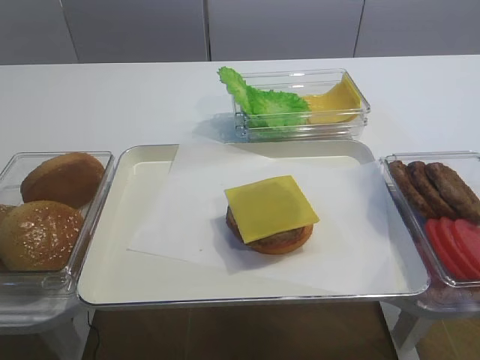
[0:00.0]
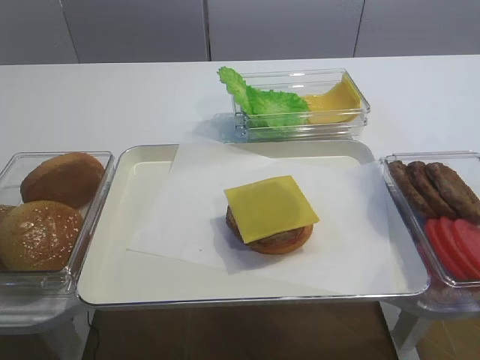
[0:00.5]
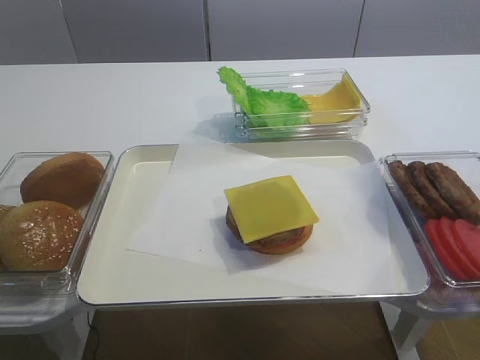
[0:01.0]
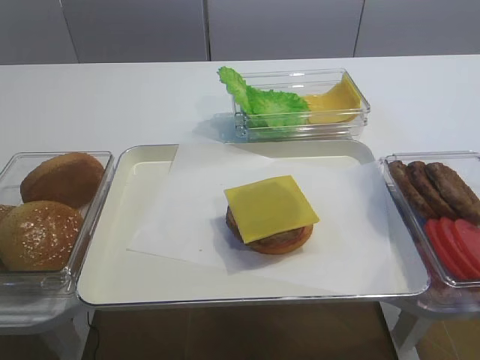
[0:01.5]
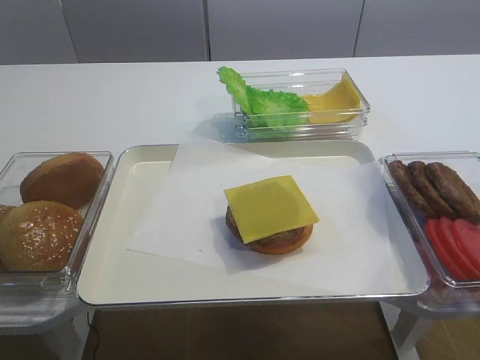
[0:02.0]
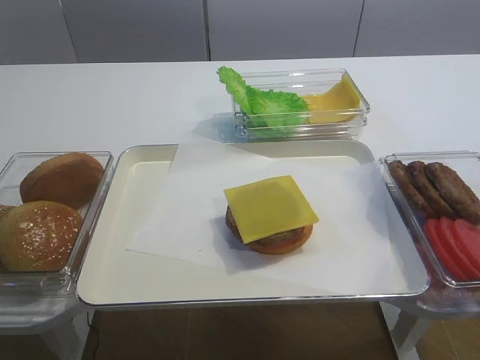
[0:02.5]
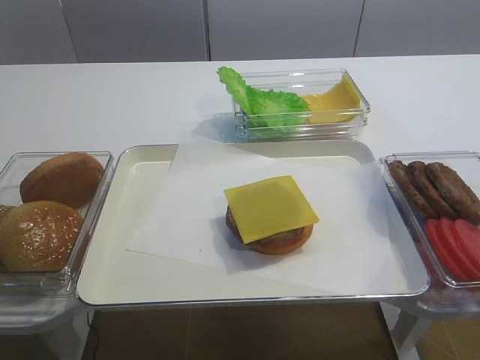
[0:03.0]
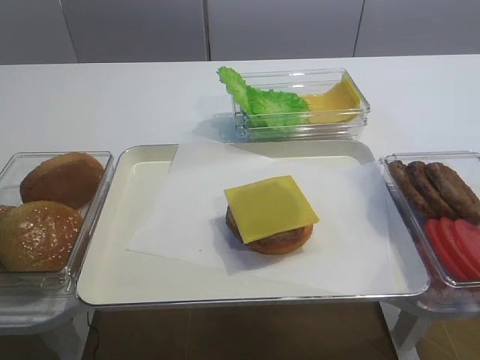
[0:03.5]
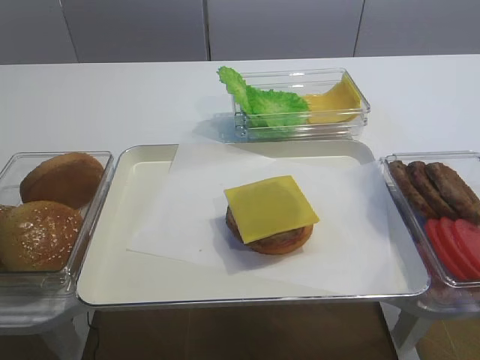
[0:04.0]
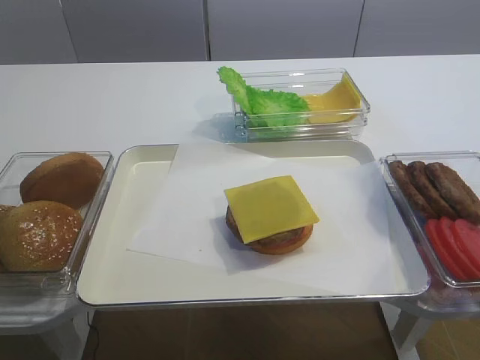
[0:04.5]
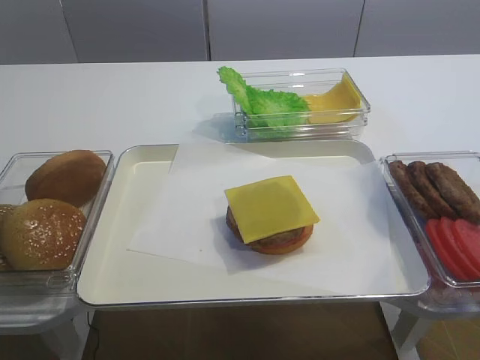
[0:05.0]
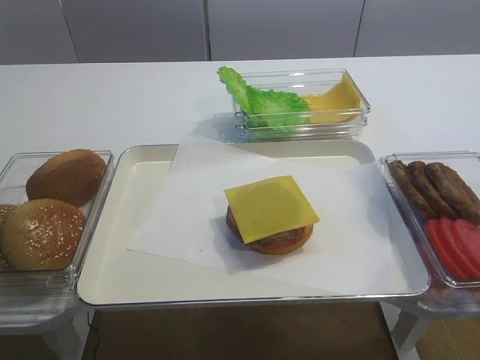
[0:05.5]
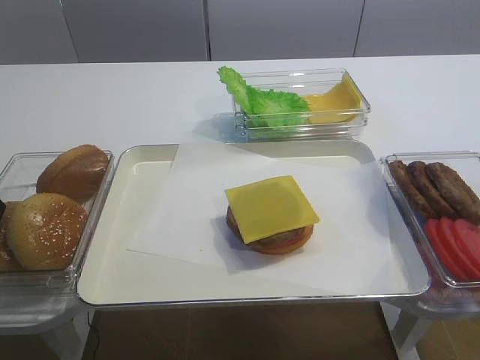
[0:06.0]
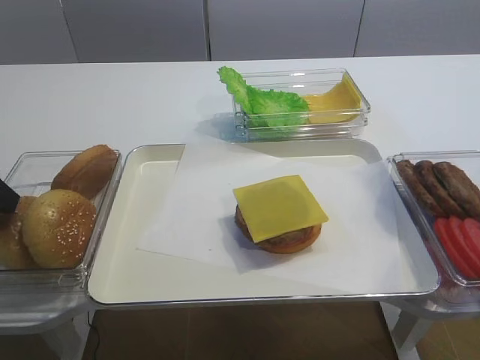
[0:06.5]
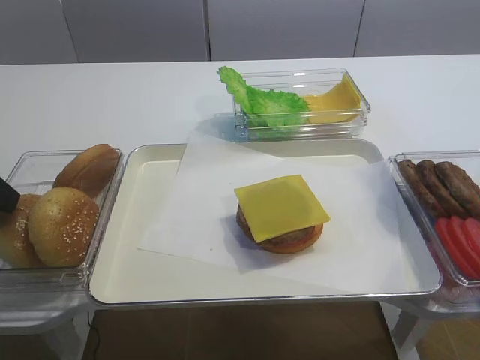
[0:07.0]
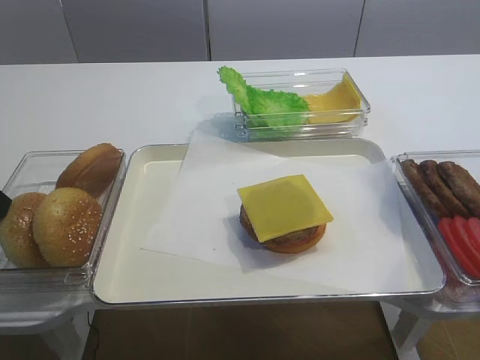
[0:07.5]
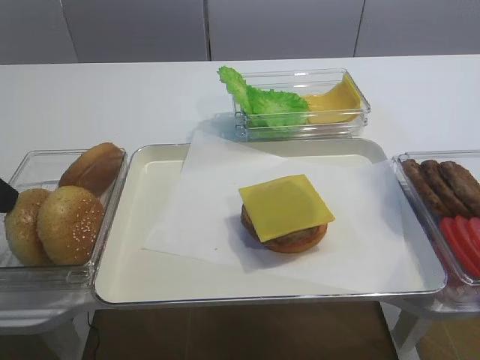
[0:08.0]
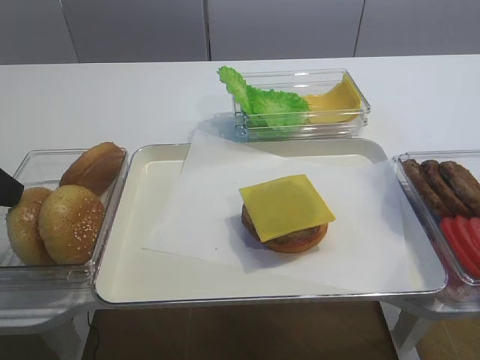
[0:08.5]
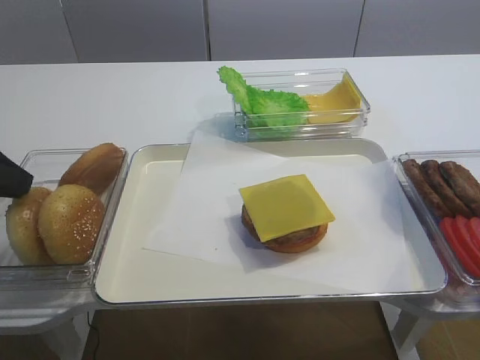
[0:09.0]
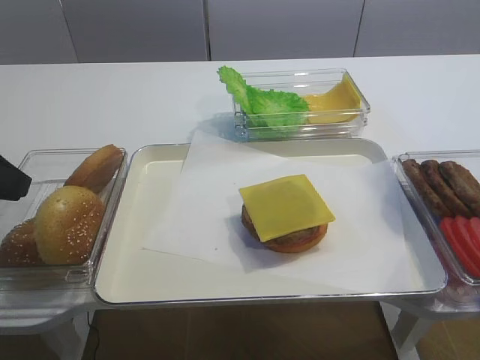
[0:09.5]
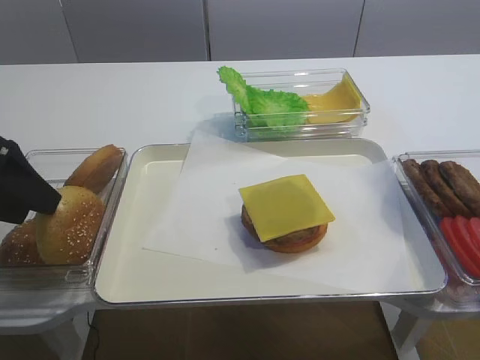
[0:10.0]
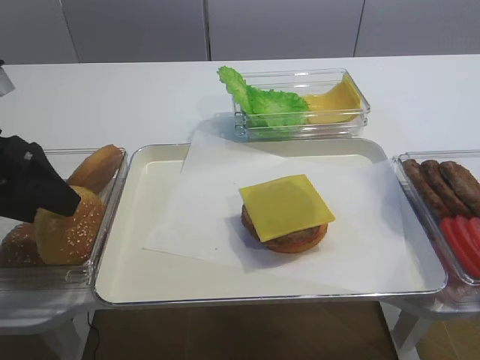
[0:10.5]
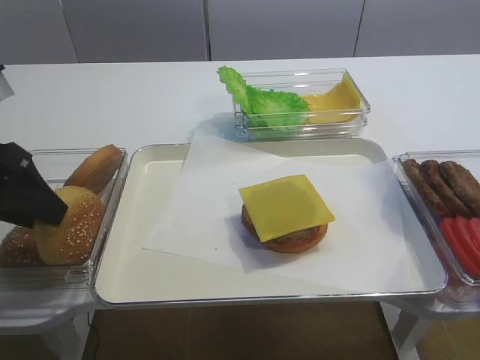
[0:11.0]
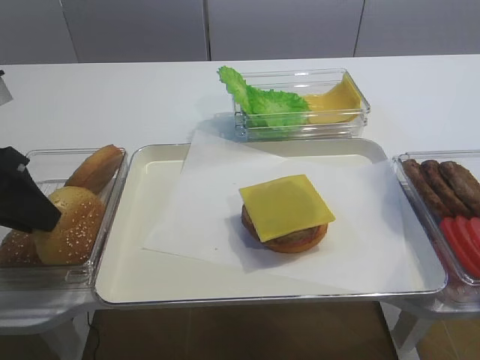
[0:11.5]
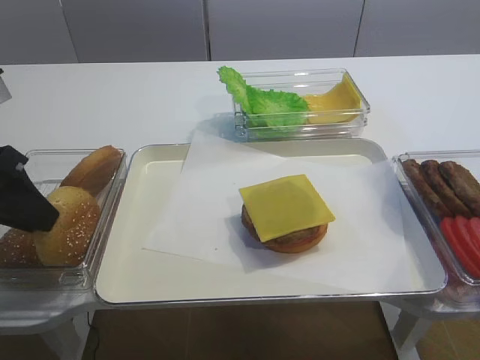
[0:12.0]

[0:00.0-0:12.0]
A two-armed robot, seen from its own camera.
0:04.0 to 0:06.0: There are only small adjustments of the grippers.
0:06.0 to 0:08.0: The left gripper closes.
0:08.0 to 0:10.0: The left gripper opens.
0:10.0 to 0:12.0: The left gripper closes.

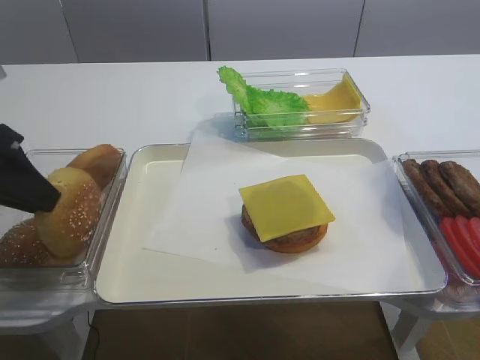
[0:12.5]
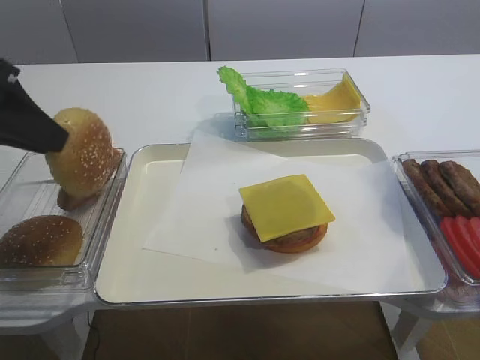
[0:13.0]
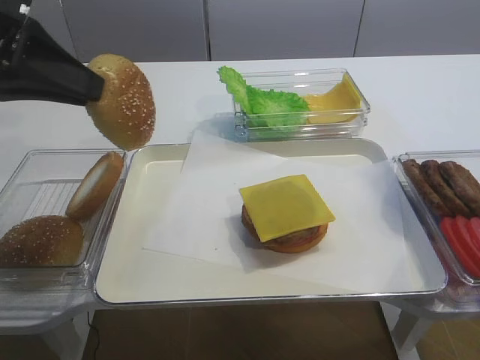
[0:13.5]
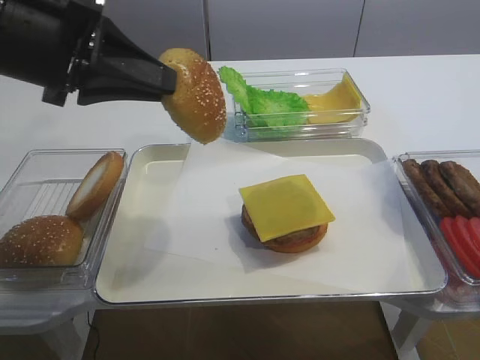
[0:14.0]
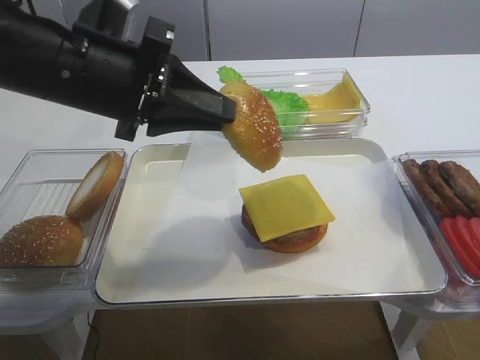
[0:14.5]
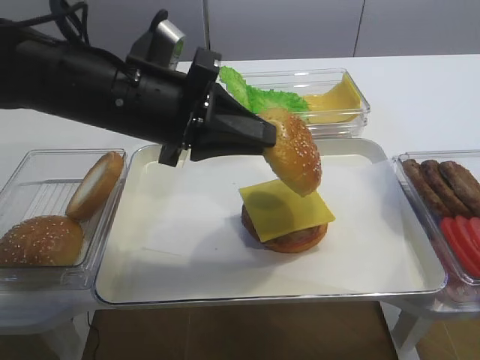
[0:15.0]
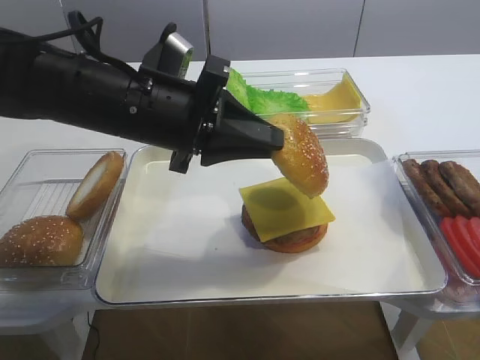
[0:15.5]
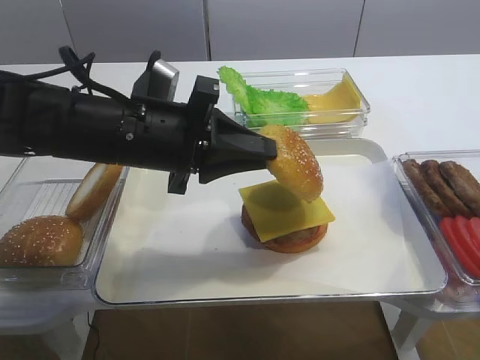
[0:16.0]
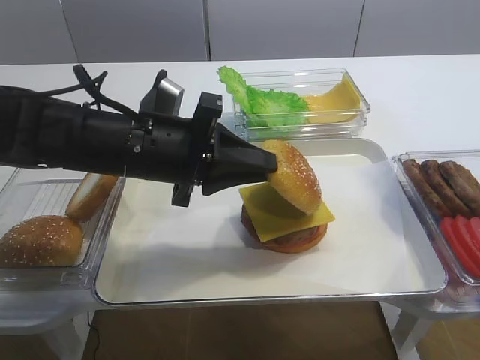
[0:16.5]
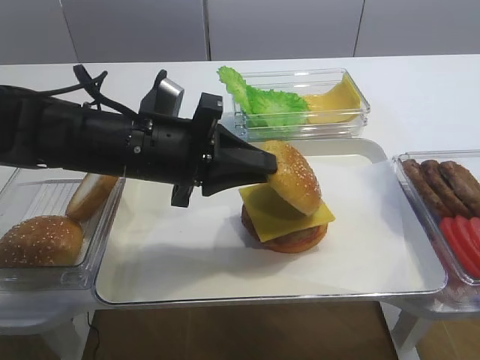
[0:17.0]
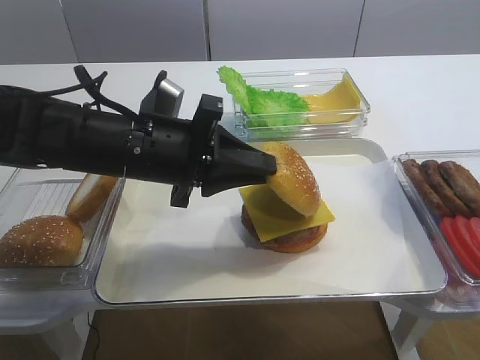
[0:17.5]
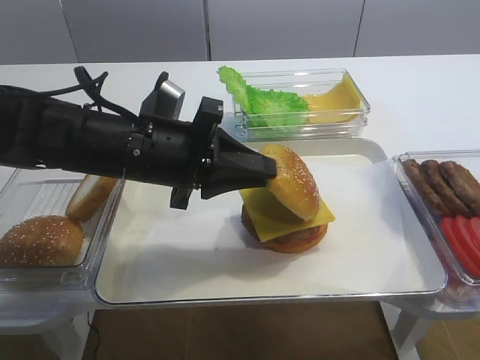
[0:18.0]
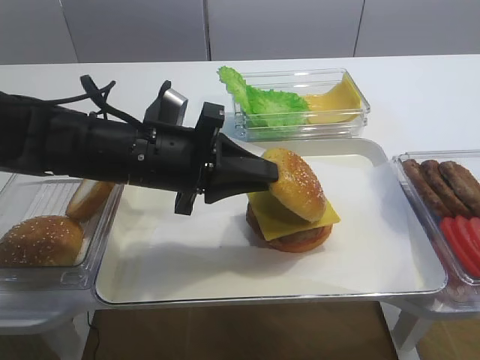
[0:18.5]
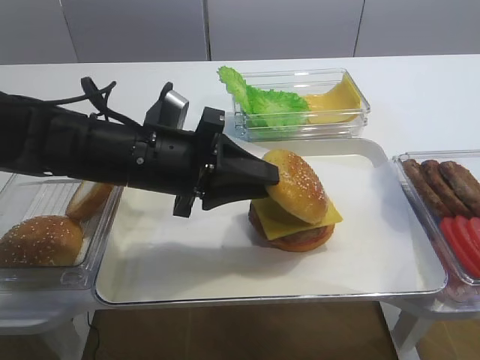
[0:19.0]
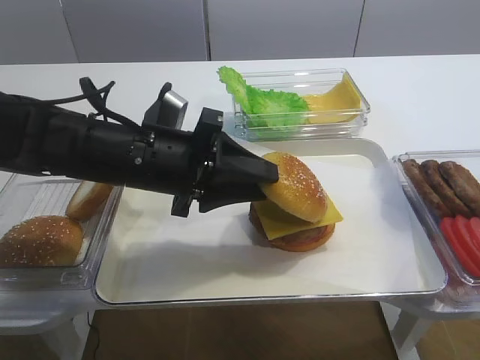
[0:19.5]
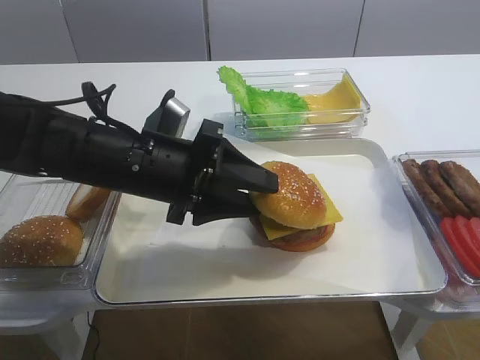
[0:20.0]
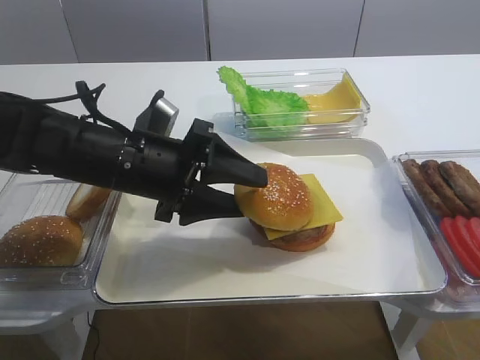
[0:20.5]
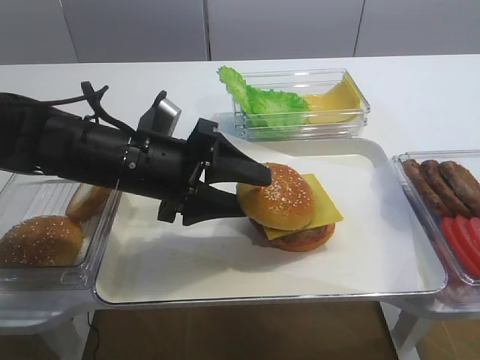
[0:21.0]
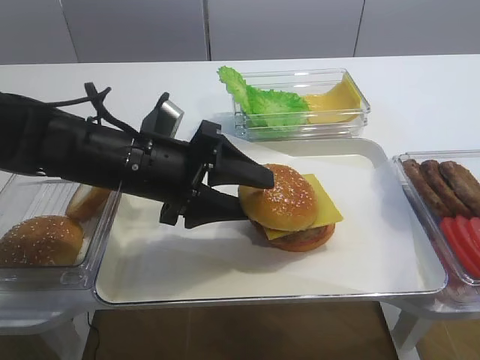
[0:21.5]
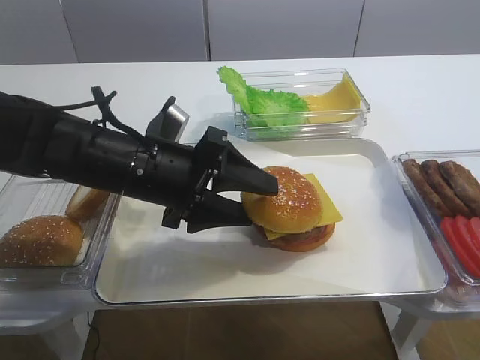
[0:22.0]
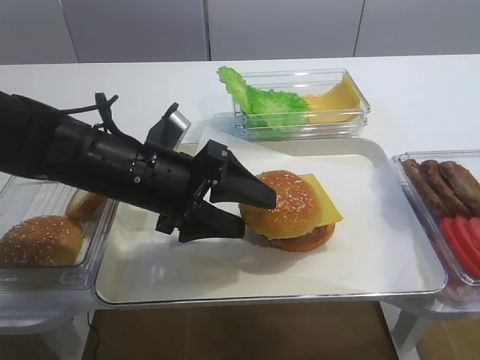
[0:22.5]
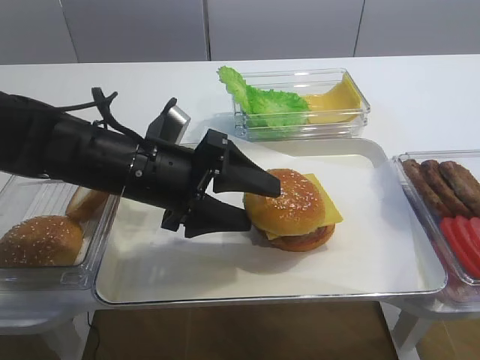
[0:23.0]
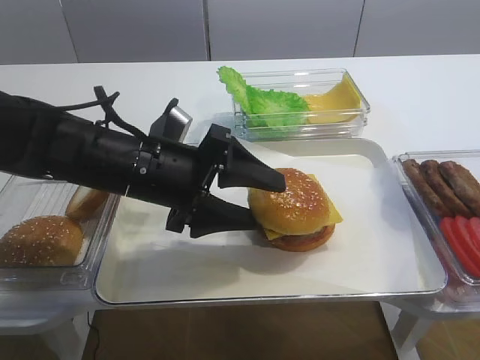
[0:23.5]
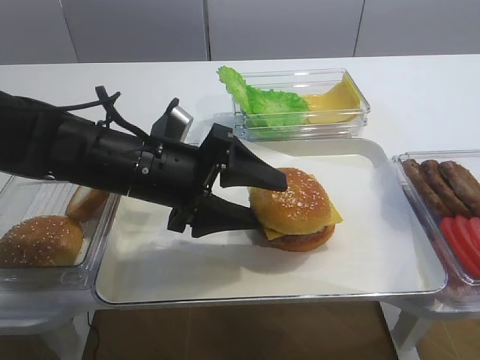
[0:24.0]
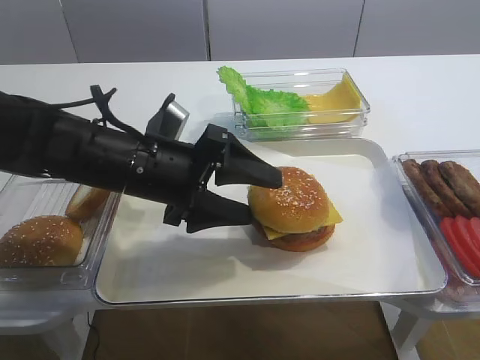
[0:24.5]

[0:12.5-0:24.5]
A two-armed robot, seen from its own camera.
0:12.5 to 0:14.5: The left gripper goes roughly 15 cm to the right.
0:14.5 to 0:16.5: The left gripper shifts approximately 5 cm downward.
0:16.5 to 0:18.5: The right gripper closes its fingers.
0:18.5 to 0:20.5: The right gripper closes up. Meanwhile the left gripper opens up.
0:20.5 to 0:24.5: The grippers stay close to where they were, moving slightly.

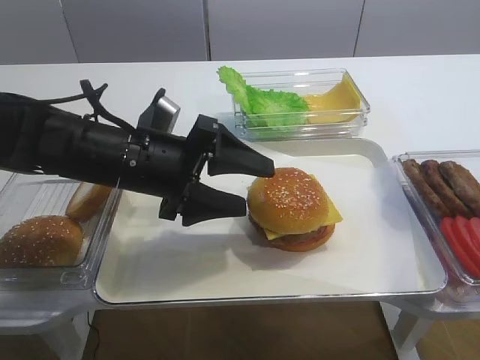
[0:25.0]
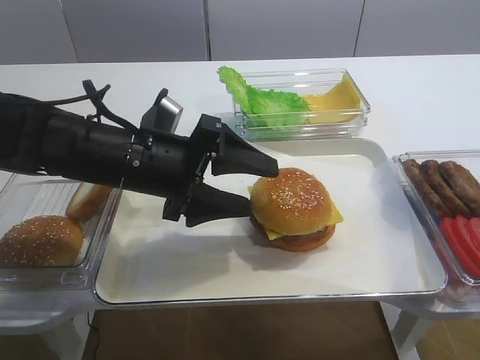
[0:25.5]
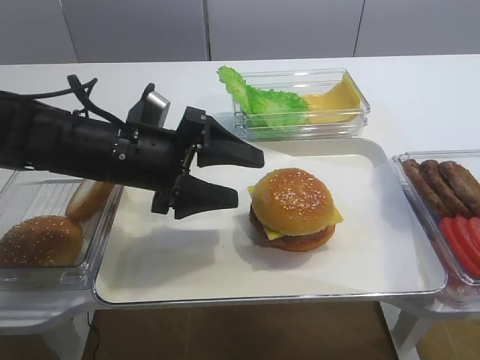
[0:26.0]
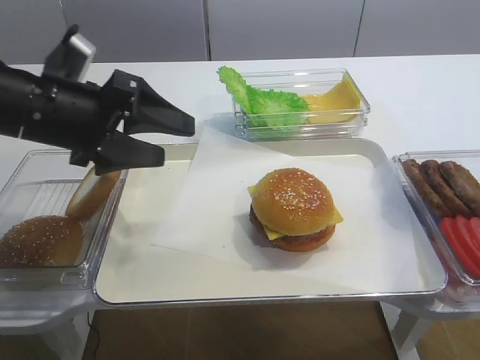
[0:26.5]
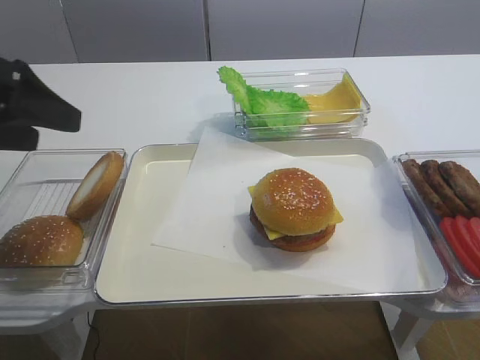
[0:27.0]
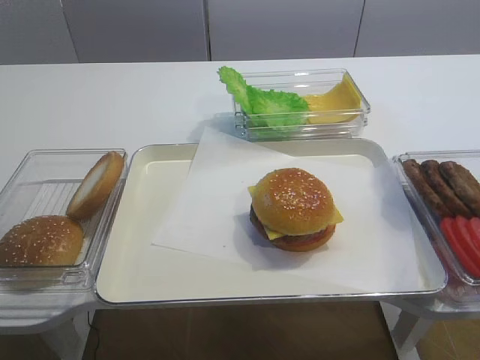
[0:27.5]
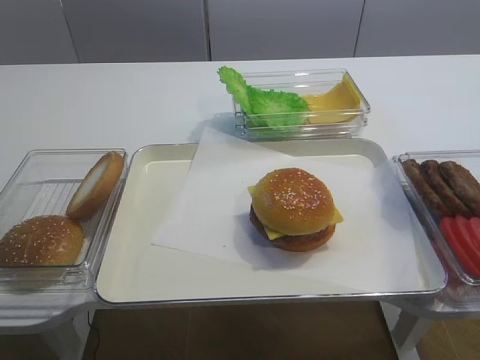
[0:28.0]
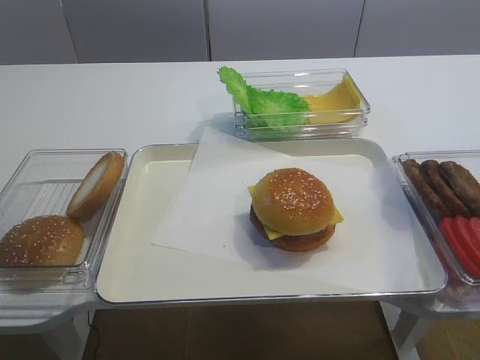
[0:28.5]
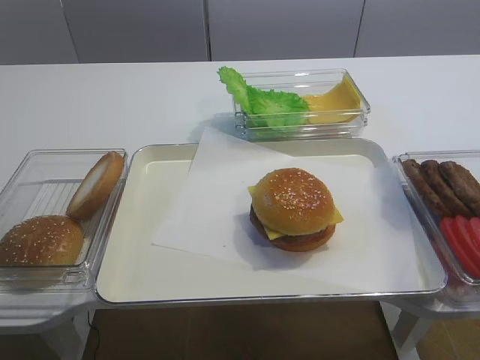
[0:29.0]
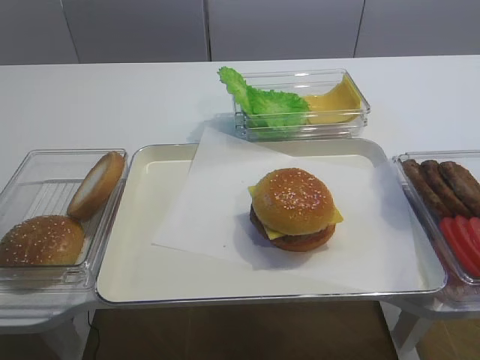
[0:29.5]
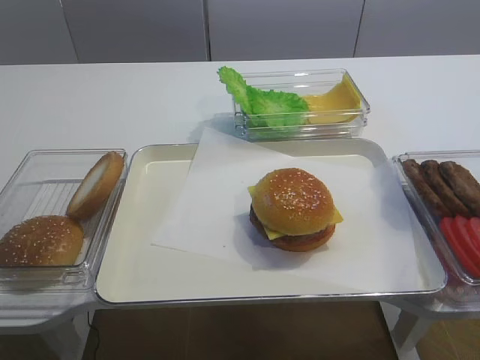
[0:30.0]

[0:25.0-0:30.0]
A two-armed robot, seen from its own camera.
0:25.0 to 0:27.5: The left gripper travels to the left, upward and backward by approximately 25 cm.
